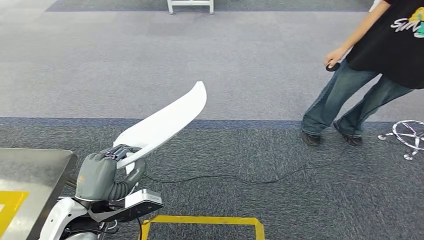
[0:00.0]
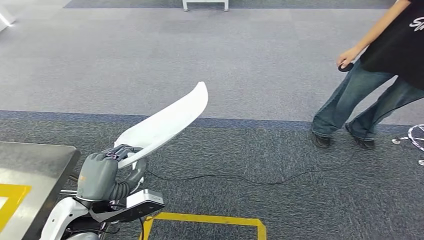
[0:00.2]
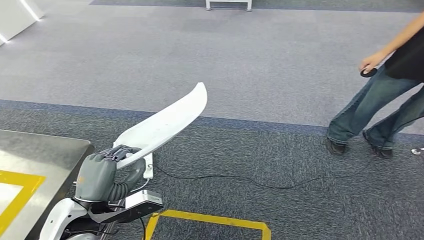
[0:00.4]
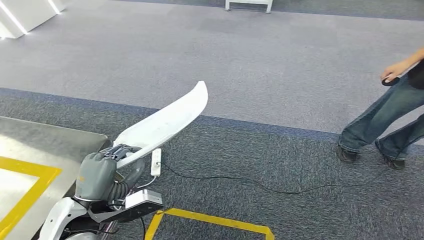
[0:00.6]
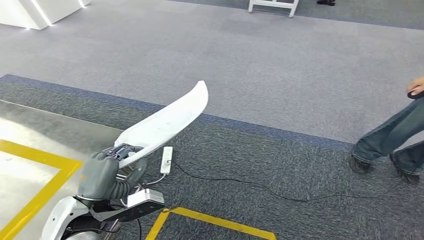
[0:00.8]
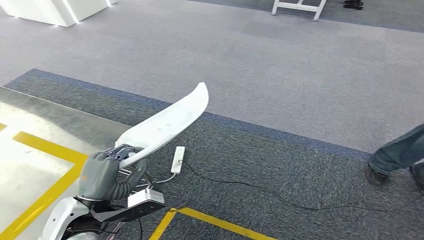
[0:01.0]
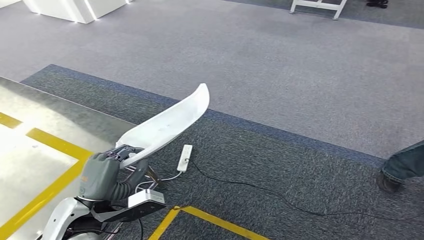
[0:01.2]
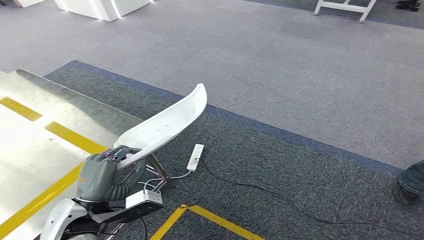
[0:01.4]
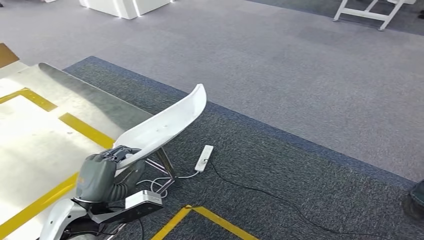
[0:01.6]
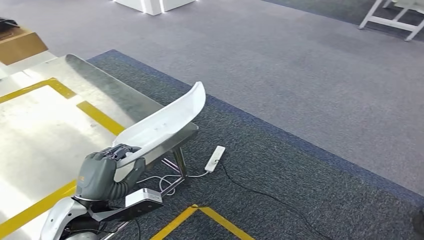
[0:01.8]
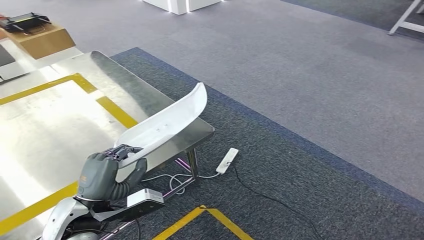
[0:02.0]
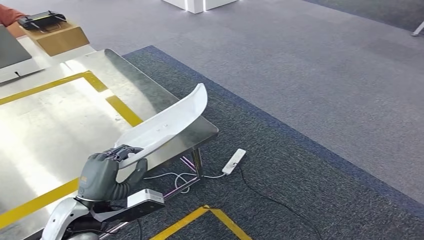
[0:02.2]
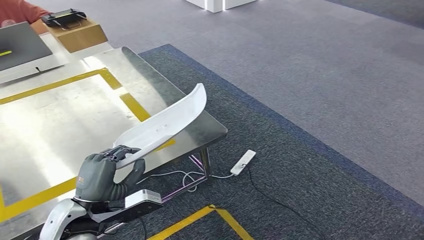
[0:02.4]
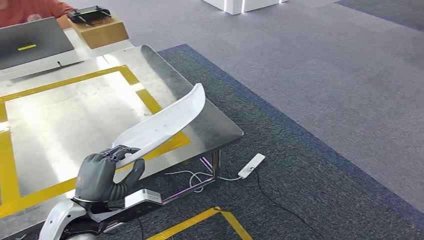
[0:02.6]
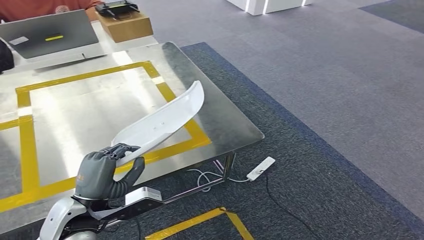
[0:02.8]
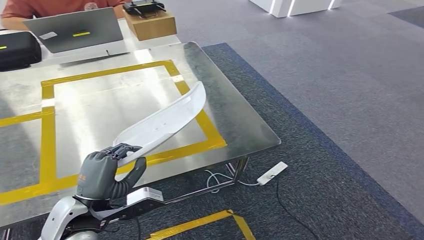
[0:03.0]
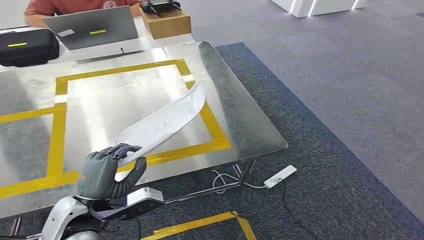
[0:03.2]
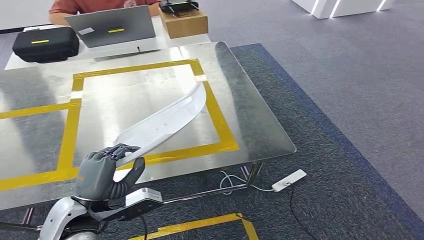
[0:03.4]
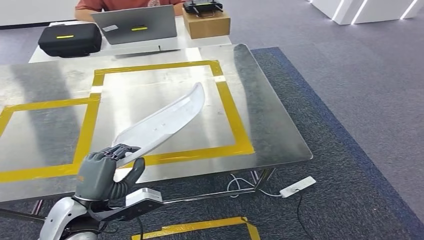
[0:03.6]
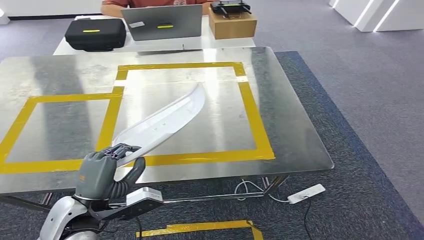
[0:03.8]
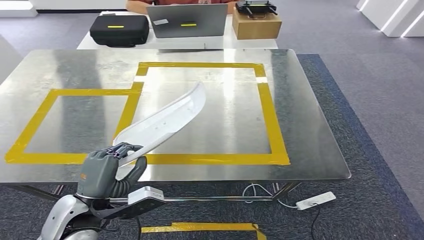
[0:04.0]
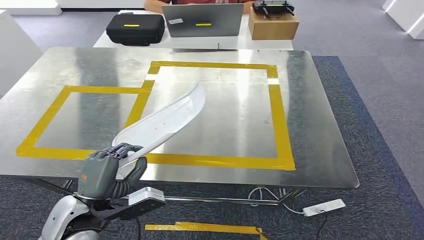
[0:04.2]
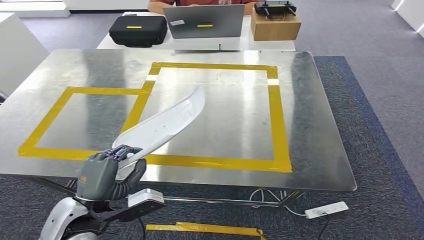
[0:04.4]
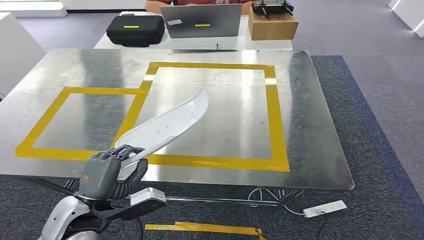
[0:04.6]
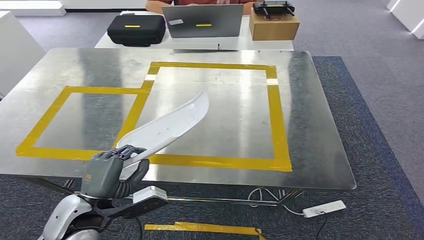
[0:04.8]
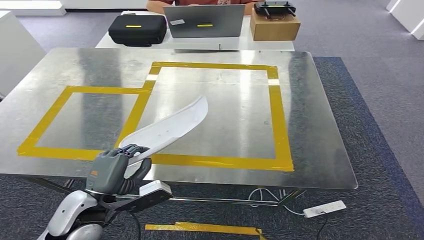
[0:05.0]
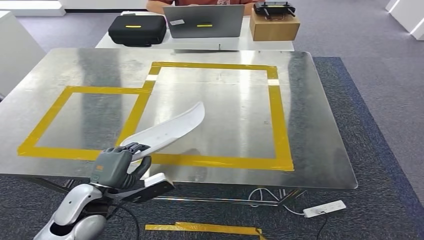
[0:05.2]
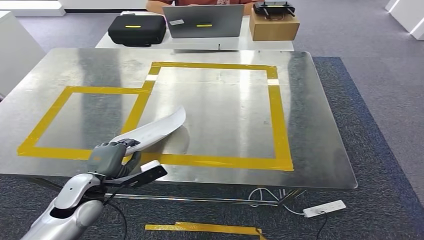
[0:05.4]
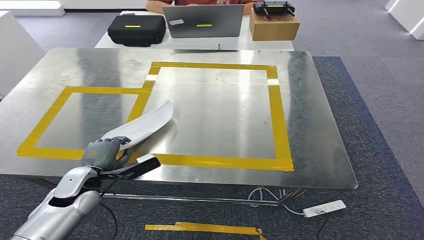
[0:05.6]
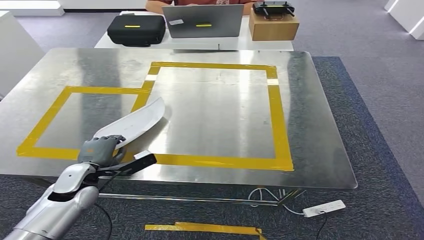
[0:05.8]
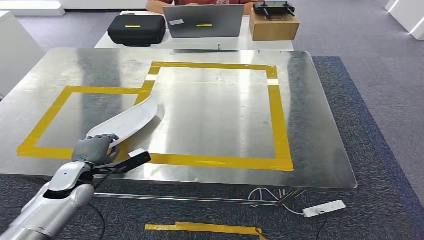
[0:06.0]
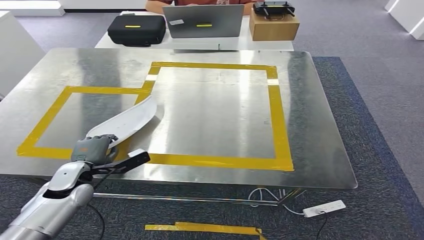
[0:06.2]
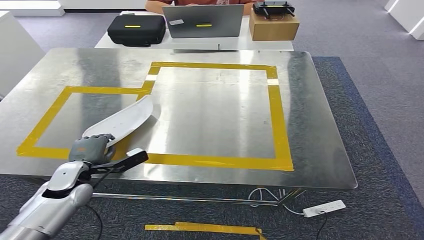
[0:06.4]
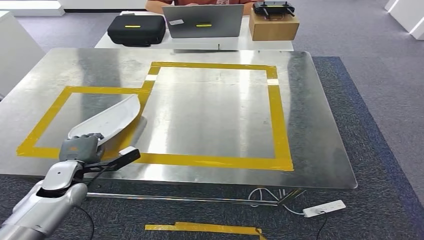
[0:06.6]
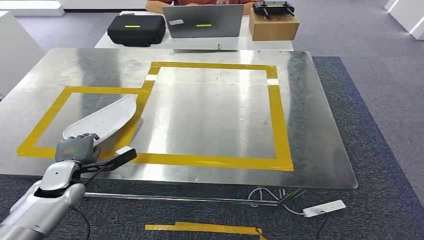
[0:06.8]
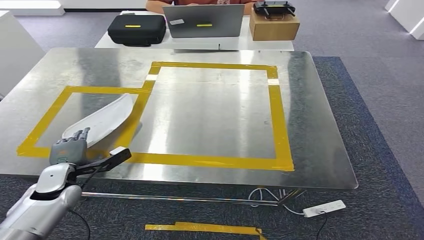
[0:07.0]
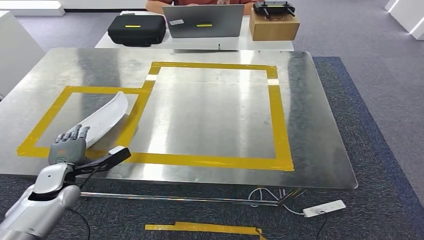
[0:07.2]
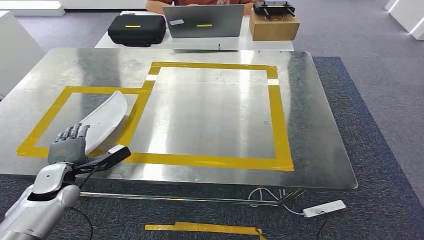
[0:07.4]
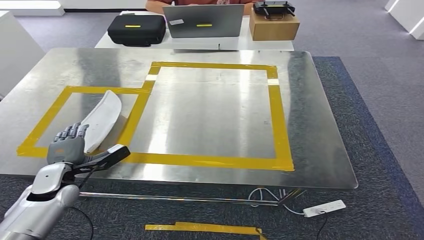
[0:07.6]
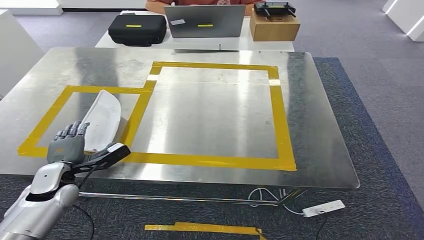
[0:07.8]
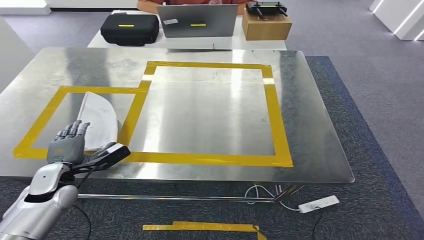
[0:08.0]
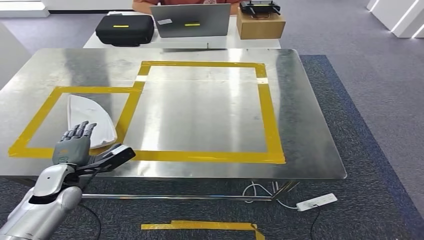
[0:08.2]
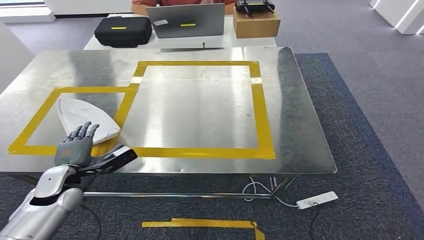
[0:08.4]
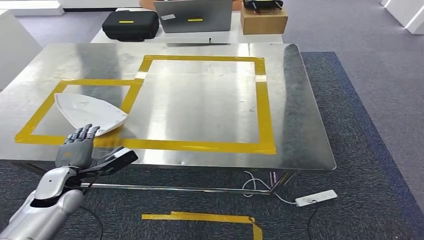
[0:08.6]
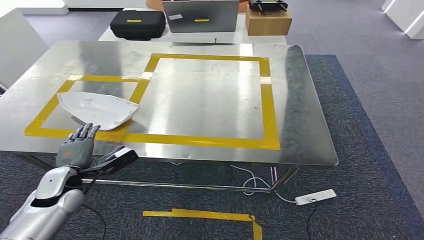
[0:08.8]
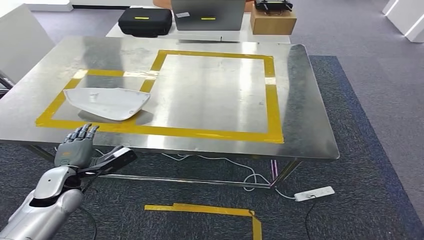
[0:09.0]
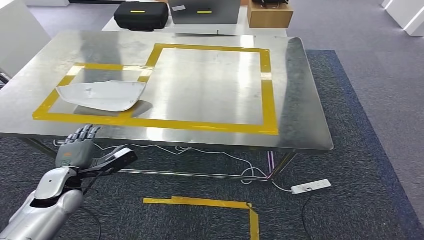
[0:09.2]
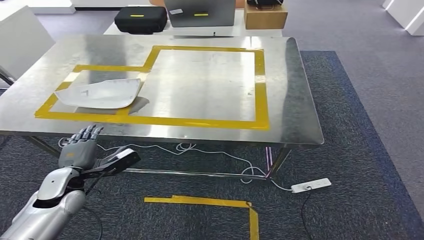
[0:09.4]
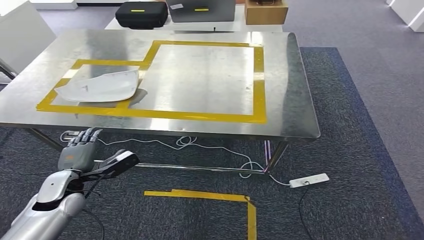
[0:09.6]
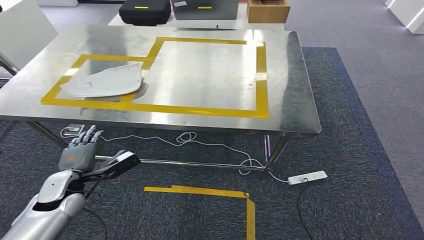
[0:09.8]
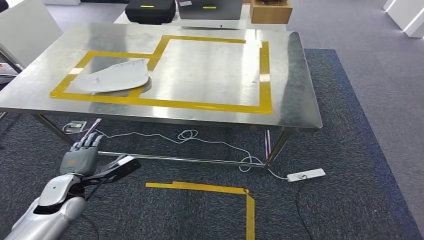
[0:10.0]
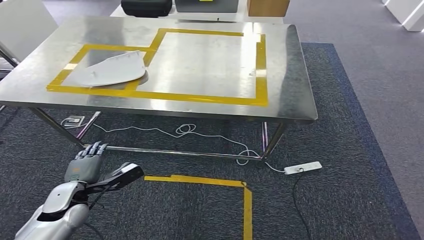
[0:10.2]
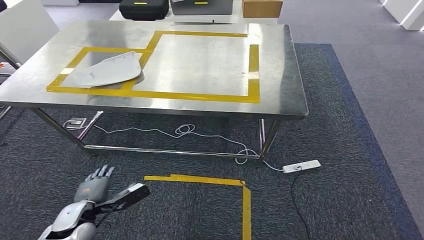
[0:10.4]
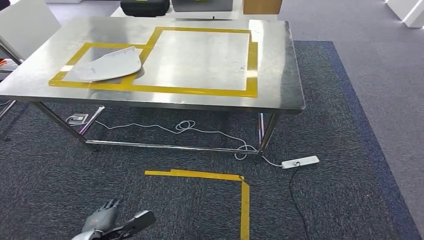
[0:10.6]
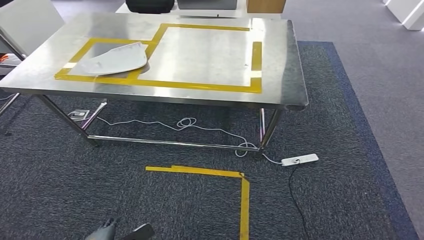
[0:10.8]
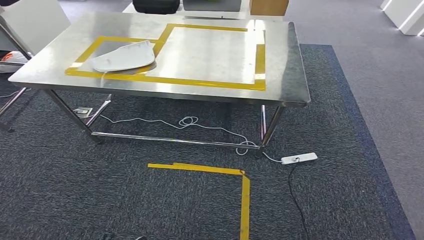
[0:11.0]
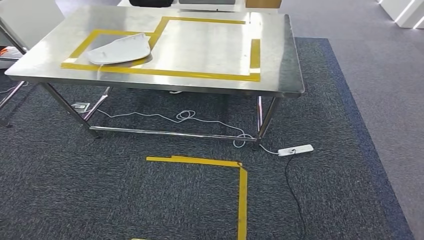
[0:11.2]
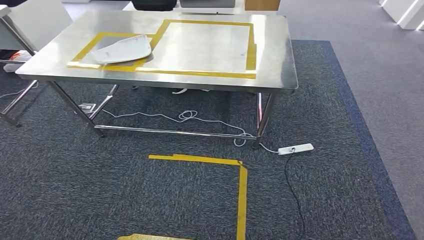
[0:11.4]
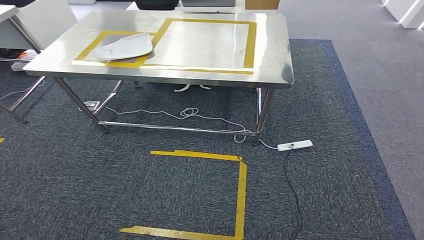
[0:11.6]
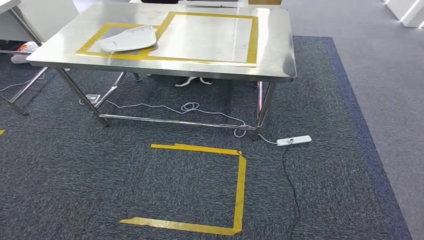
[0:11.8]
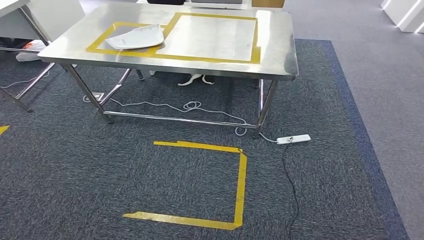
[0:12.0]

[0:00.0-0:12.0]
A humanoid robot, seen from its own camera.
Step, 0:00.0 to 0:04.4: Move the small component to the workbench.
0:04.4 to 0:06.0: The left hand moves forward, downward and to the left, some 15 cm.
0:06.0 to 0:07.6: The hands stay close to where they were, moving slightly.

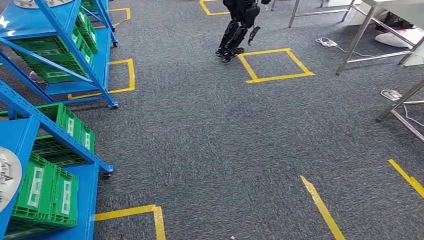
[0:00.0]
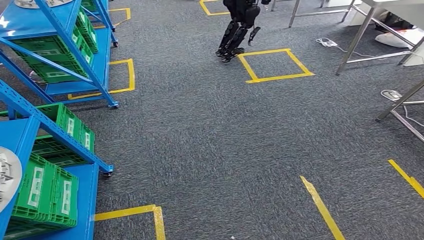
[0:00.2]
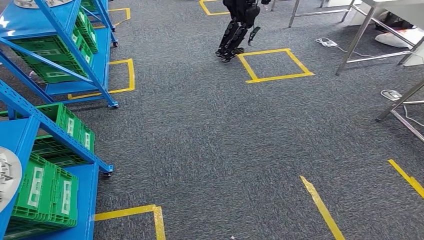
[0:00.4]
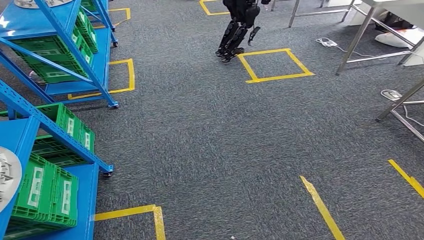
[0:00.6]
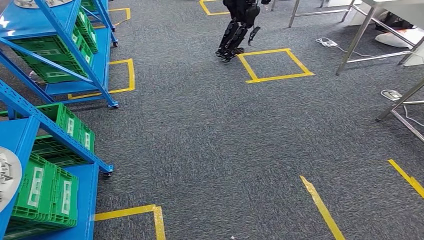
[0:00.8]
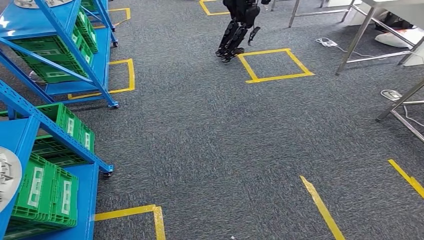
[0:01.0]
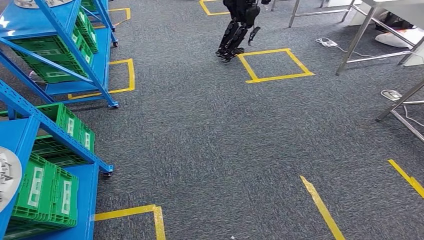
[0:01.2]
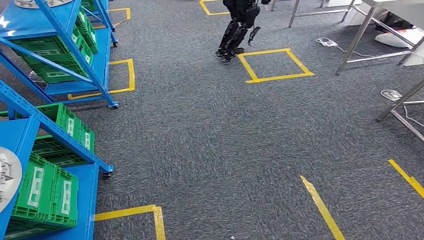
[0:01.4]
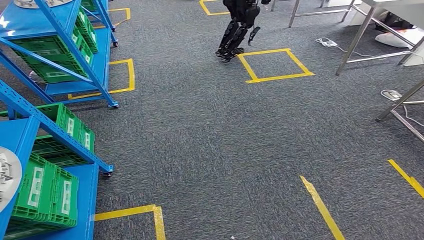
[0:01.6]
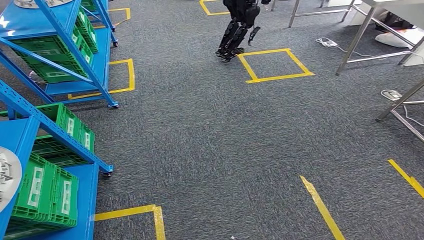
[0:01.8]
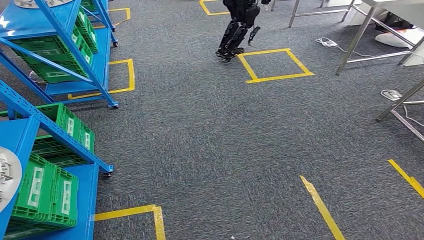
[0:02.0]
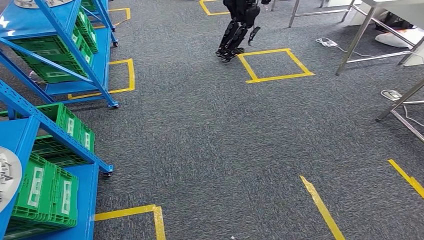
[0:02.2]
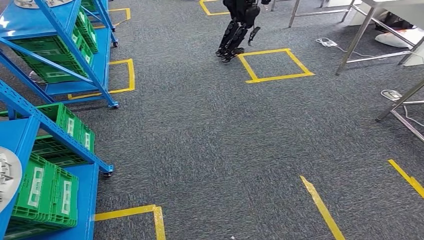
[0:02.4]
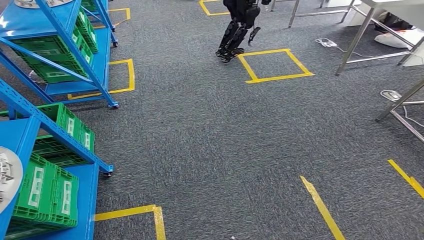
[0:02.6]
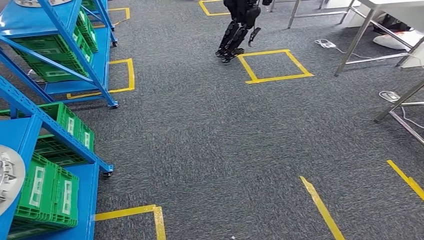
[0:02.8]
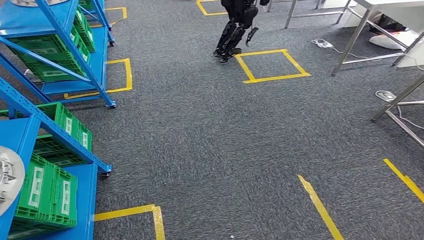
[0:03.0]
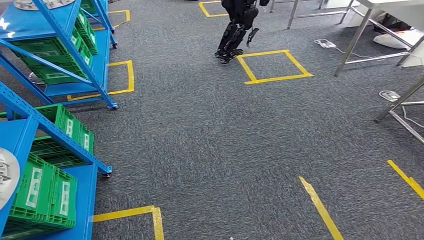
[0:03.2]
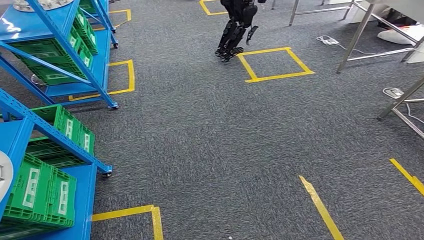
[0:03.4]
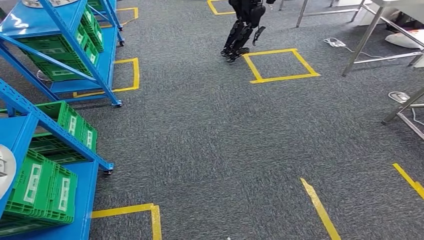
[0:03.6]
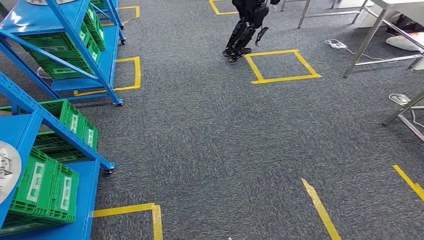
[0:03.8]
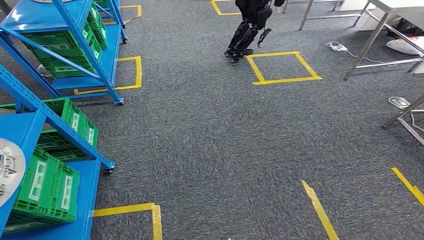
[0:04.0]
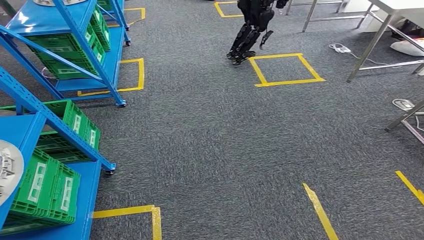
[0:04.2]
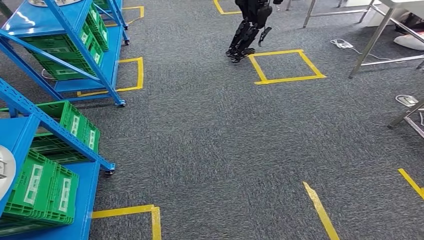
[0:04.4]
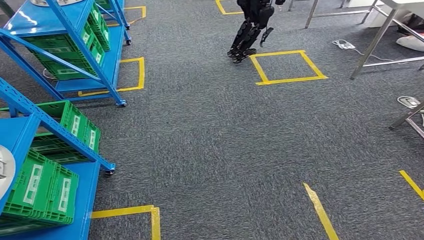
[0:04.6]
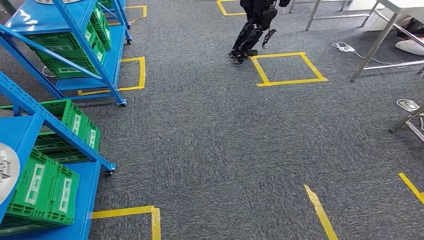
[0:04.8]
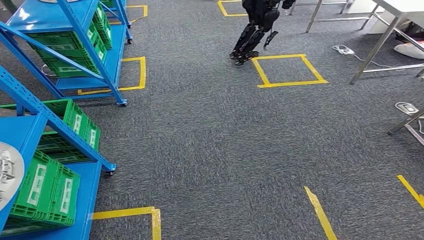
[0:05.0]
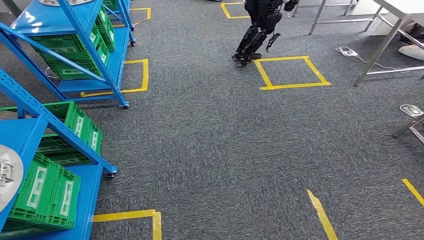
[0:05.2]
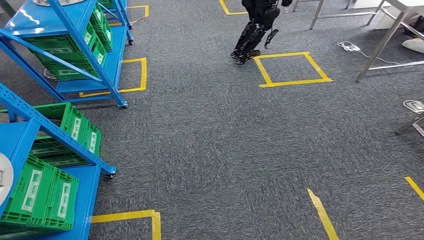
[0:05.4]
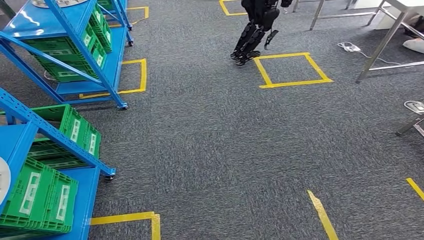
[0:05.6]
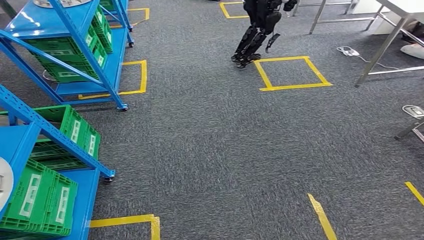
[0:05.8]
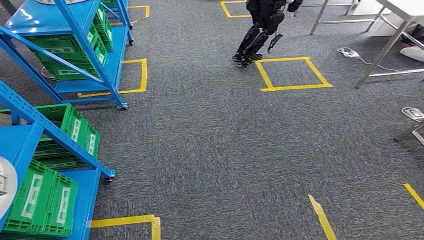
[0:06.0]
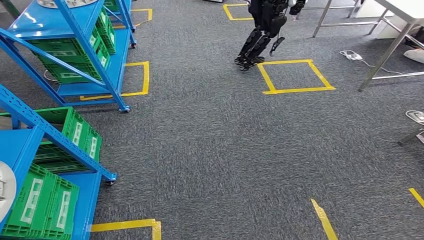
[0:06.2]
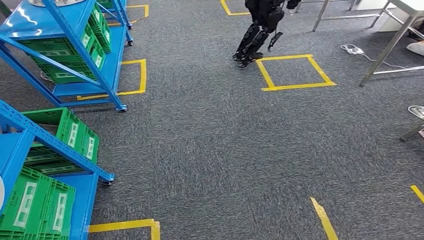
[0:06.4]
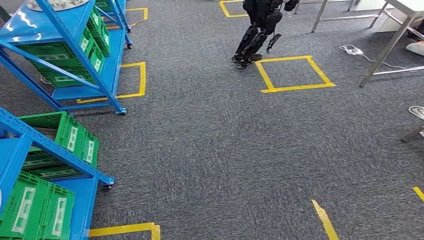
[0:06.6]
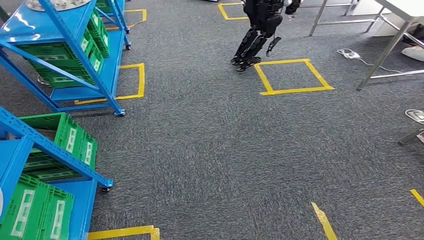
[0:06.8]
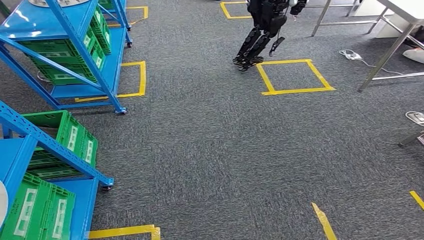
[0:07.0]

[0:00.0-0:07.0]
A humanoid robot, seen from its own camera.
0:00.0 to 0:02.8: Neither hand changes place.
0:04.2 to 0:05.6: Both hands stay about where they are.
